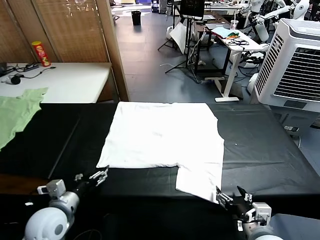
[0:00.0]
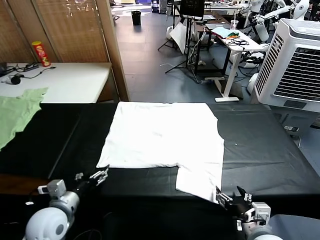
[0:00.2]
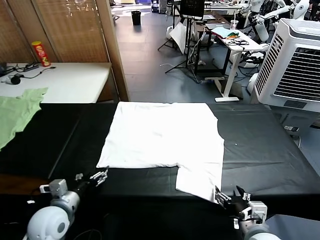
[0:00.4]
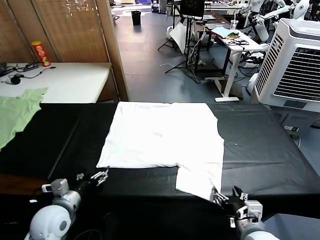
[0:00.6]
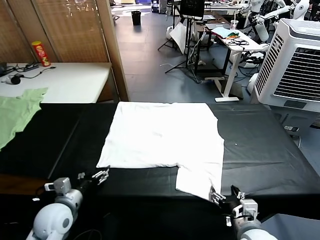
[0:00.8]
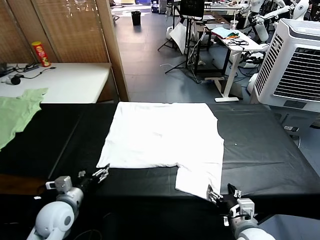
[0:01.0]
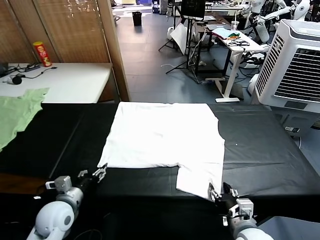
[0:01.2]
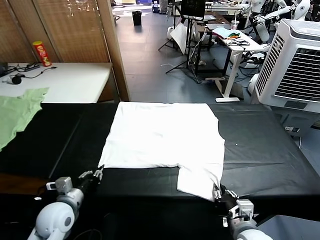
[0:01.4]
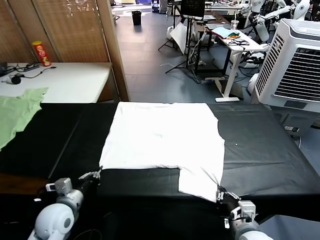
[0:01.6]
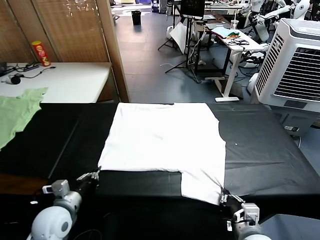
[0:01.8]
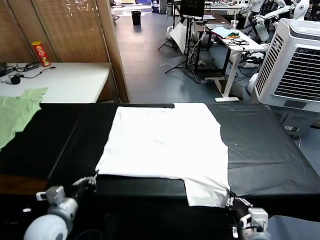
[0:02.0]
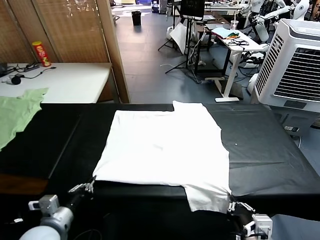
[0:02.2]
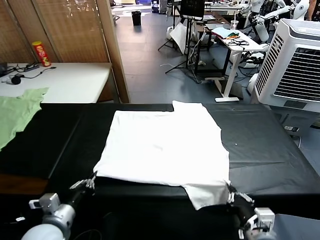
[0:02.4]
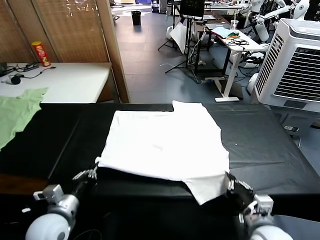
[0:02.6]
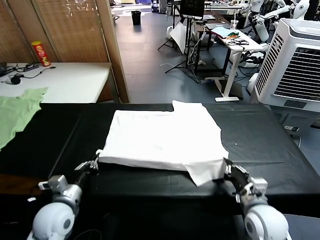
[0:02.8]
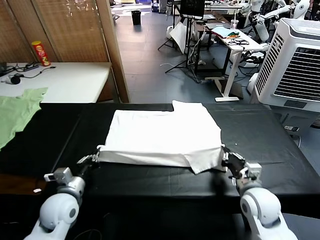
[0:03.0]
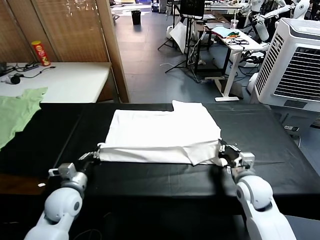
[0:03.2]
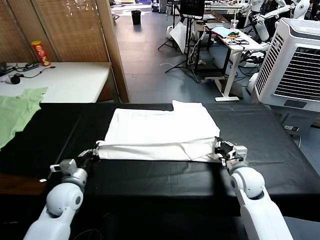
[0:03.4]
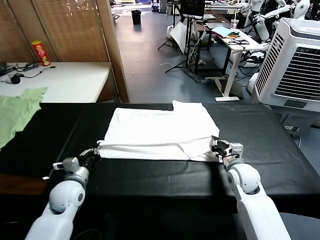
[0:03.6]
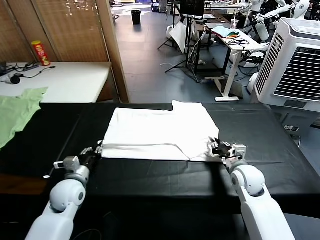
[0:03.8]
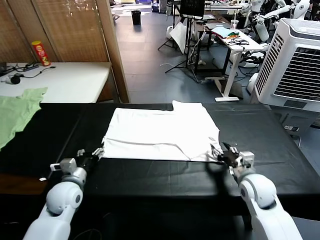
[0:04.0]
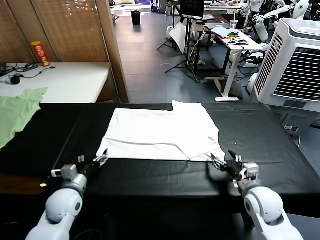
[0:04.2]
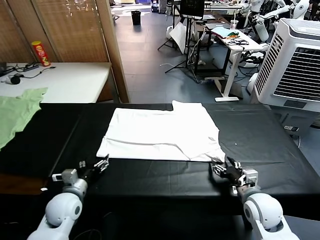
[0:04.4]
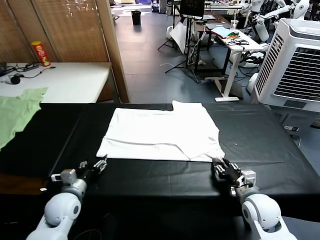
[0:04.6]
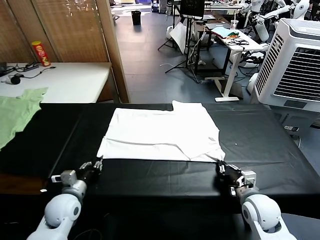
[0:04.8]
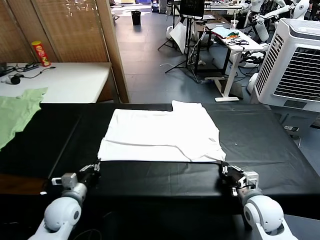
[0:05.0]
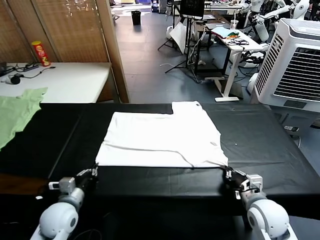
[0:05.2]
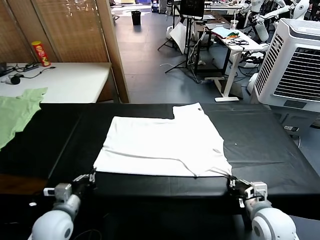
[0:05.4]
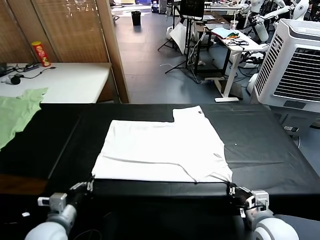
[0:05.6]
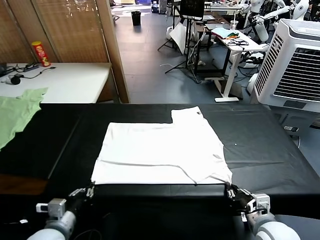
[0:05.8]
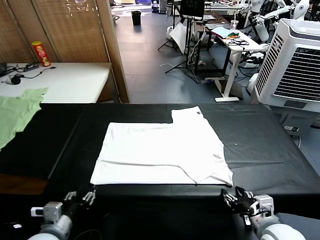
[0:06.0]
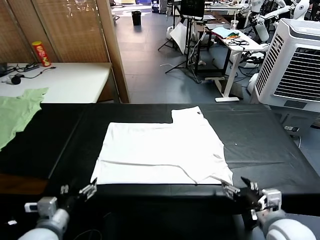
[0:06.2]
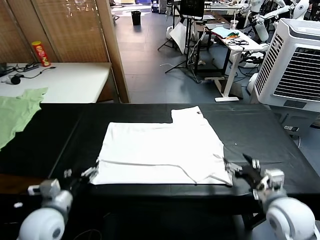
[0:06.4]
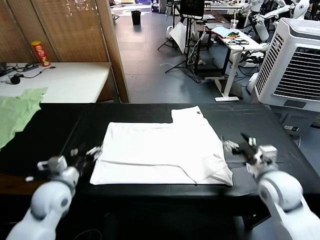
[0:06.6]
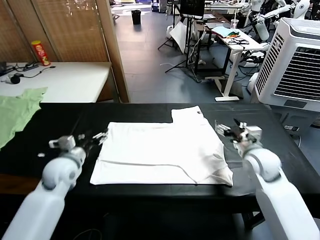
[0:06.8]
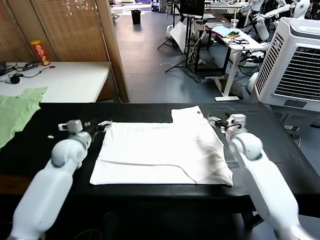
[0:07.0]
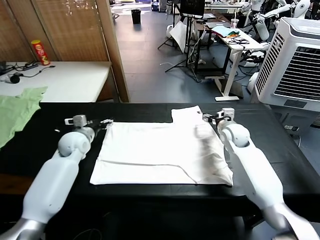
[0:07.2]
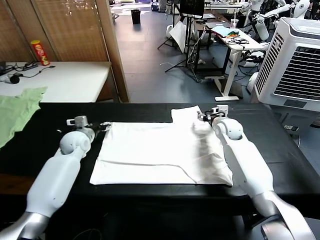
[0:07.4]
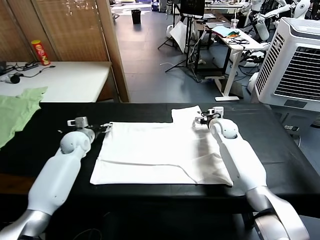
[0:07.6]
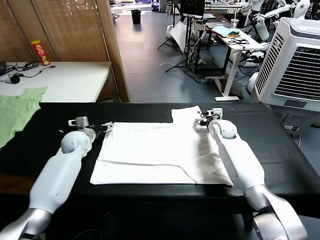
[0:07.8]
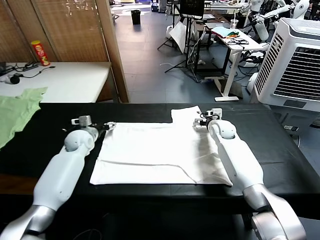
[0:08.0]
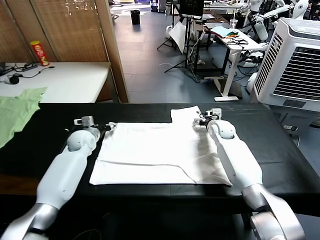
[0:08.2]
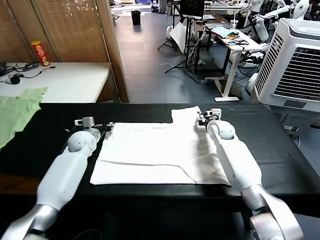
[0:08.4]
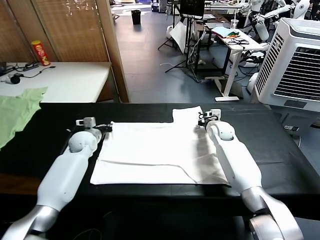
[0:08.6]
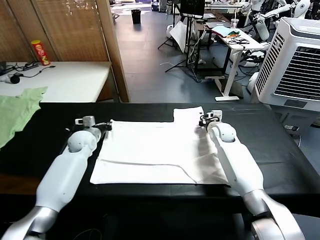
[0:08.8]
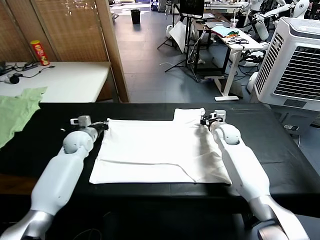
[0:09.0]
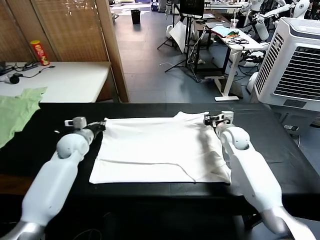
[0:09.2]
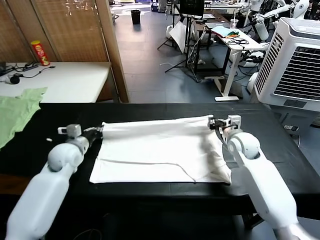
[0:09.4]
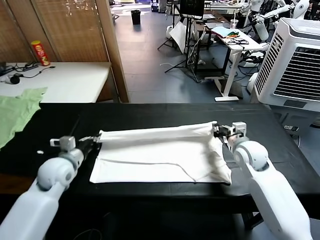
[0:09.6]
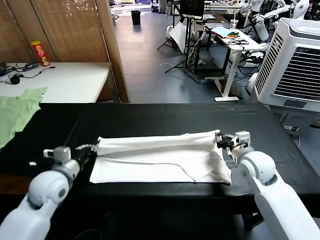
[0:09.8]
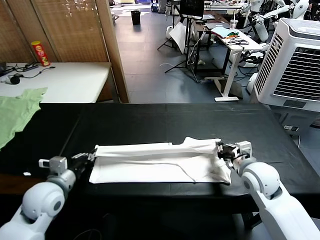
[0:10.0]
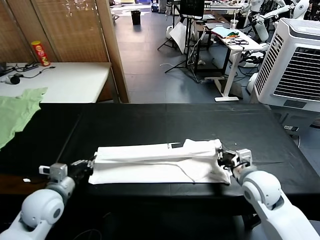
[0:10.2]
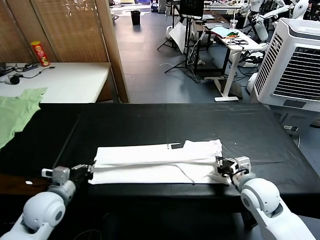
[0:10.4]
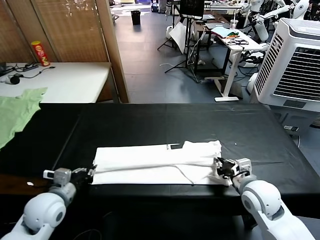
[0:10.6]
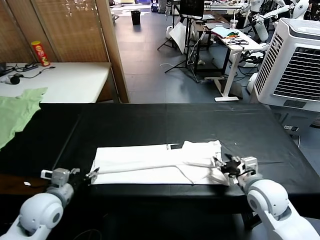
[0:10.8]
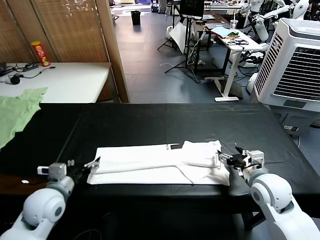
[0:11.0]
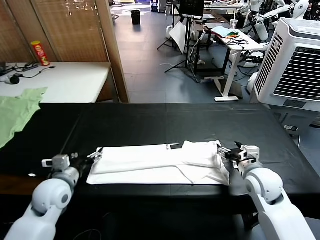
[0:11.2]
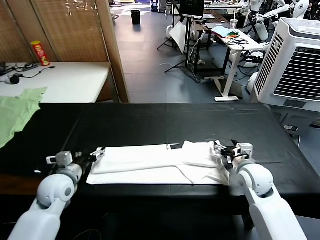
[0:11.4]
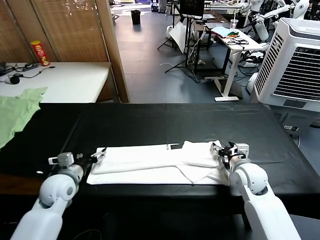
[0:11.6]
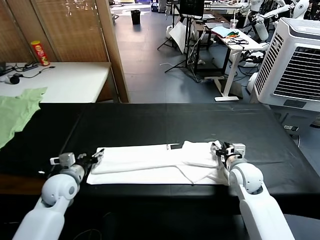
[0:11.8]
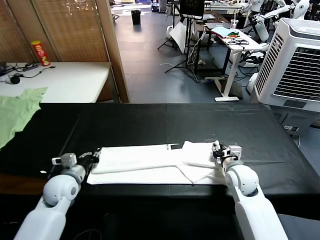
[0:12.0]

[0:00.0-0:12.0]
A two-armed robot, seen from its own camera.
Task of the whole recording: fold and organize the clothes.
Step, 0.0 to 1.6 s: use both grippers simultaneously to clamp the lower edge of the clothing fabric.
Step, 1.8 to 4.0 s: use both grippers to drag the lower edge of the fabric forward and fold it over the upper edge.
Step, 4.2 to 6.0 s: Drag the clothes downward with both gripper.
Step, 6.2 to 8.6 s: use both grippers simultaneously to clamp the upper edge of the clothing fabric.
Step, 8.8 to 10.8 s: use both grippers to drag the upper edge of the fabric backward and fold it over the lower edge.
1.6 to 3.0 s: The right gripper is displaced forward by approximately 15 cm; the left gripper goes backward and returns, about 5 cm each way.
3.0 to 4.4 s: The left gripper opens up. The right gripper moves some 5 cm, and opens up.
4.4 to 6.0 s: Both grippers move backward and upward, approximately 15 cm. The right gripper opens its fingers. Meanwhile the left gripper closes, then opens again.
6.0 to 7.6 s: The grippers both shift forward by roughly 35 cm.
7.6 to 9.0 s: The right gripper closes up; the left gripper closes up.
9.0 to 10.4 s: Both grippers travel together backward, some 25 cm.
10.4 to 12.0 s: Both grippers move forward, some 5 cm. The left gripper opens and closes again. The right gripper opens and closes again.

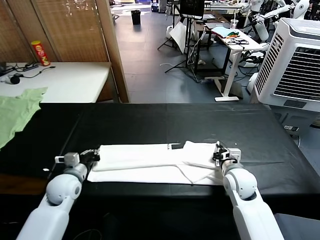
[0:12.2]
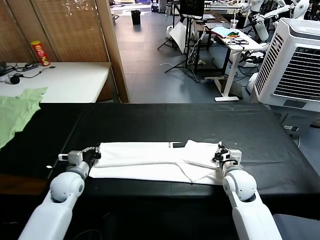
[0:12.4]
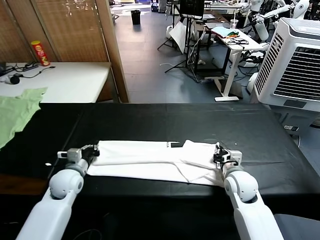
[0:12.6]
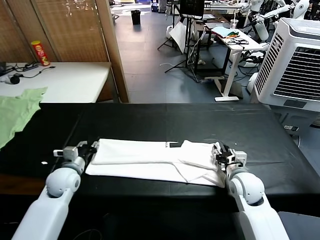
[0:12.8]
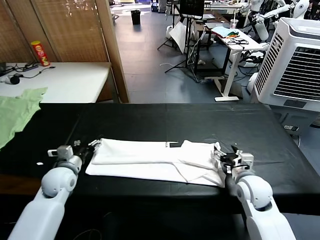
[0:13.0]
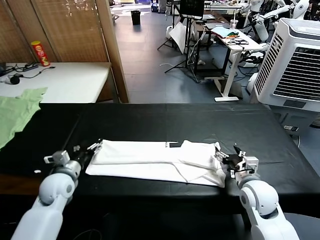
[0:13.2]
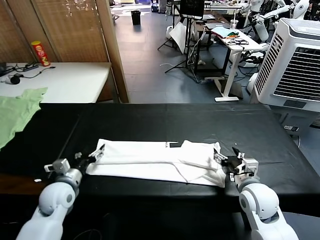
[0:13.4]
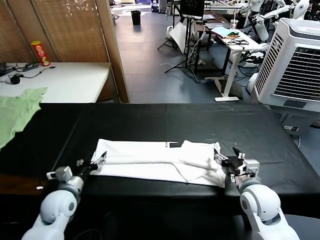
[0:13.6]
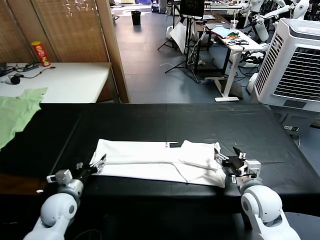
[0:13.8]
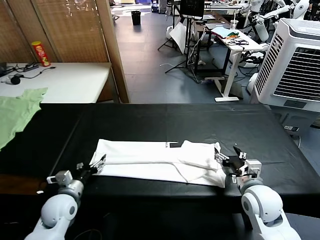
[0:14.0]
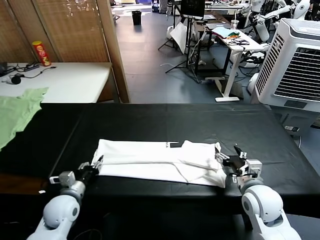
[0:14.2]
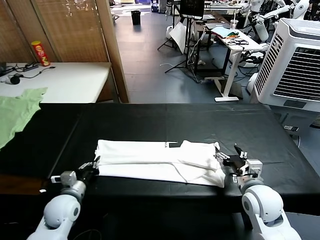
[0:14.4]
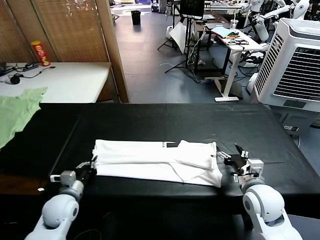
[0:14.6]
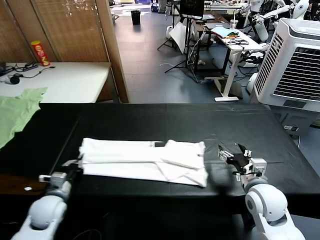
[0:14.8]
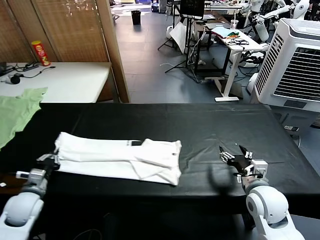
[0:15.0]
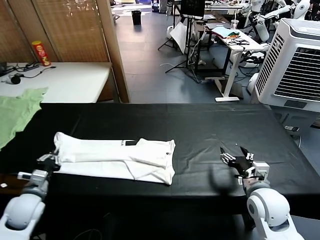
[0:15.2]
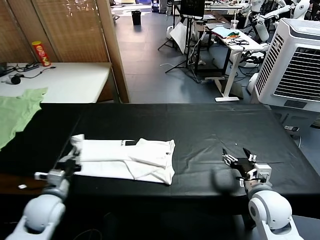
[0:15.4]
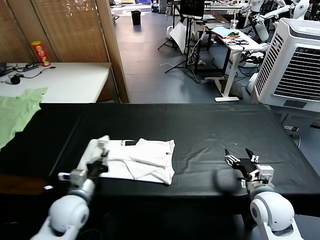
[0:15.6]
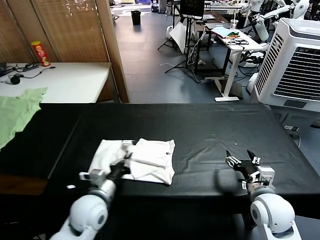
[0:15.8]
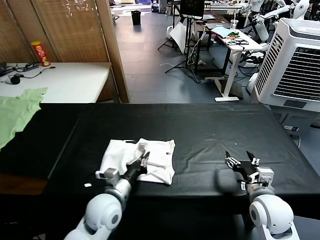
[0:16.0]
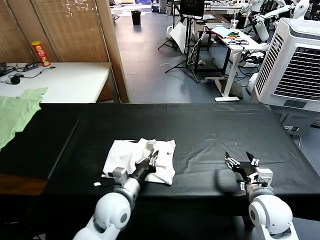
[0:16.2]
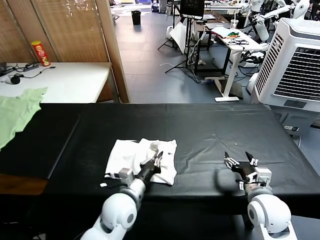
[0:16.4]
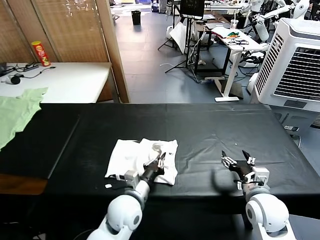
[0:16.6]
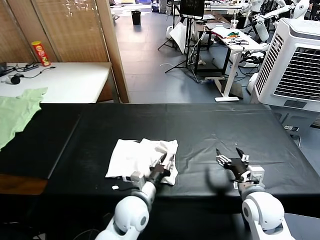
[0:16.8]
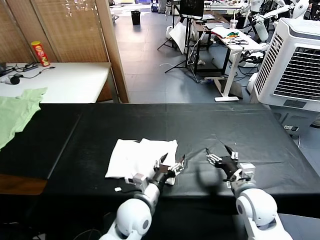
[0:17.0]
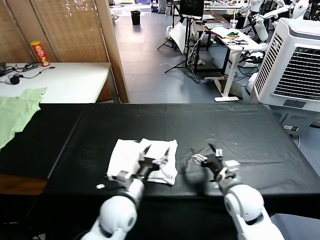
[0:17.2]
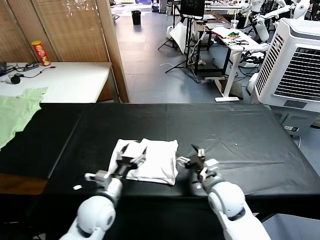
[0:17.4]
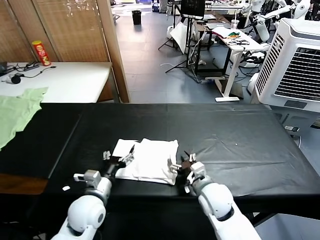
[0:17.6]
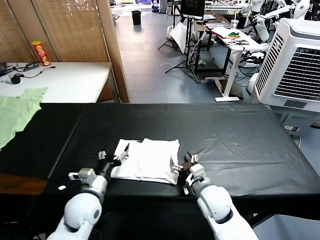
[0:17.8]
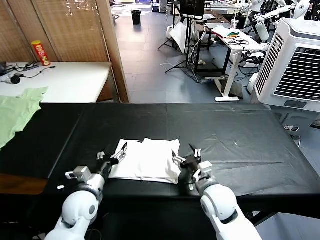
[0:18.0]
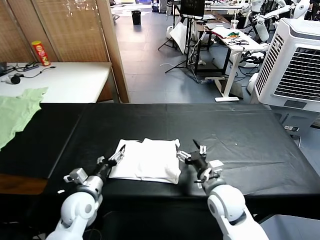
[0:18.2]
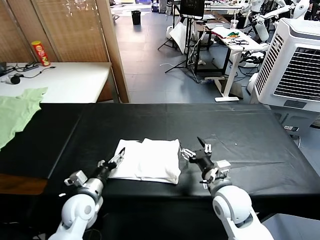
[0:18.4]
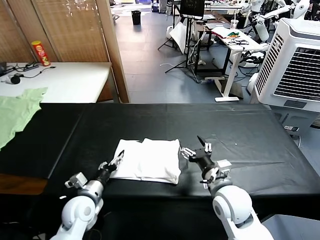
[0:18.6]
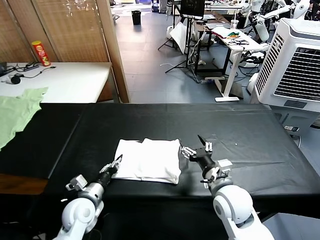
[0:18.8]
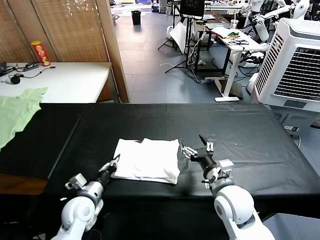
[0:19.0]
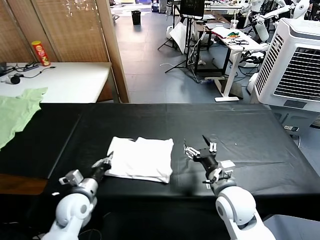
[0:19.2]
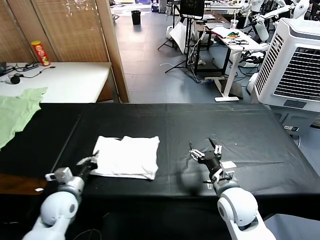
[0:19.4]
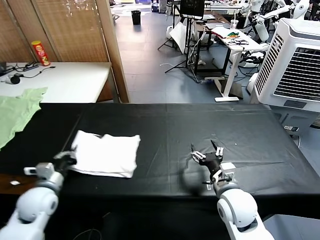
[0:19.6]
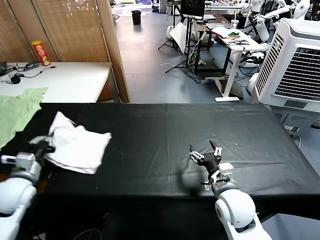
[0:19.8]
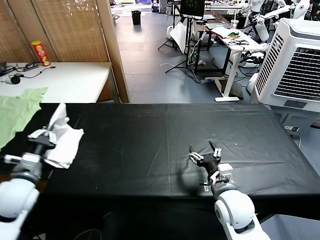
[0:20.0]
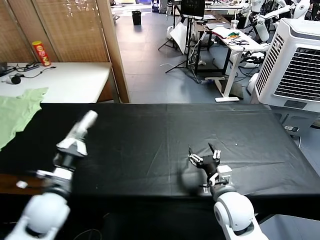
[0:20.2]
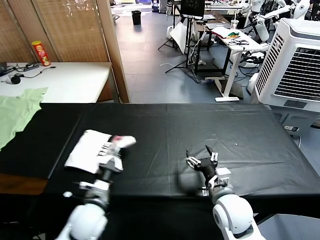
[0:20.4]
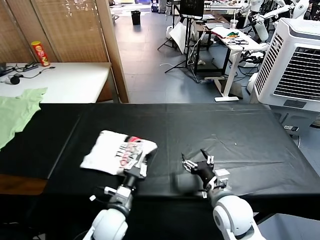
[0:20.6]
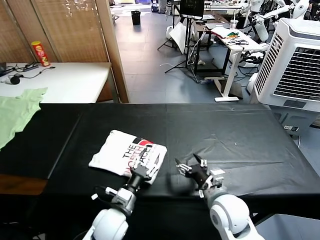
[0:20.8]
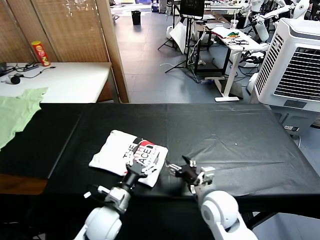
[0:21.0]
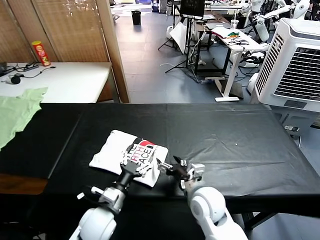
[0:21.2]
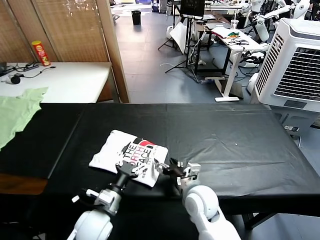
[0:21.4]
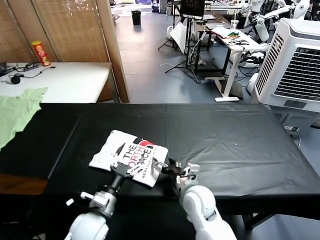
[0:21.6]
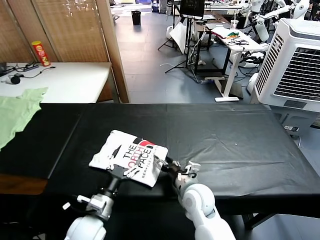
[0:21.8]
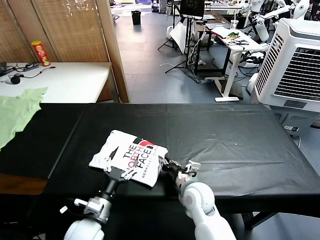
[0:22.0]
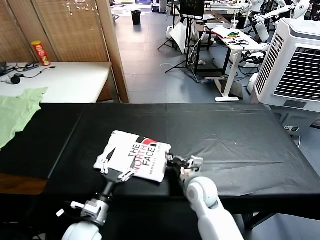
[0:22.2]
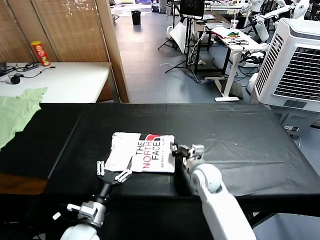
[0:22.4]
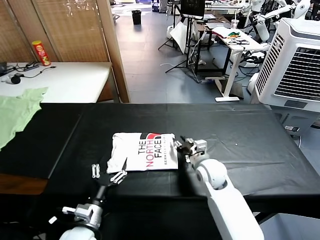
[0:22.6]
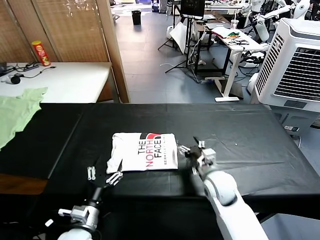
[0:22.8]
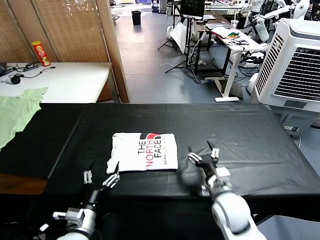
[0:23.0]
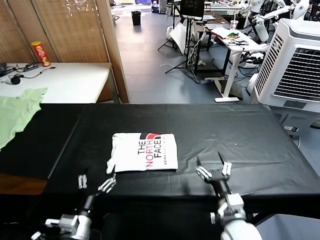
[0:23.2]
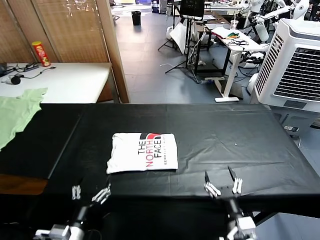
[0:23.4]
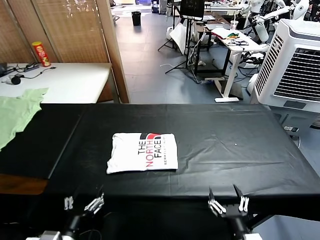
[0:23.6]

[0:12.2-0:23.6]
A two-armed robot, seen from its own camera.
Task of the whole recording: fold and organize the clothes.
Step, 12.2 to 14.4 s: use the left gripper to clamp the left edge of the fabric.
Step, 14.6 to 16.8 s: use the left gripper to drag the left edge of the fabric to the left and folds it over the right edge.
Step, 17.0 to 20.6 s: Flip the folded clothes over with left gripper.
Step, 20.8 to 22.4 s: Drag the clothes to the center of the table.
12.2 to 13.6 s: The two grippers go roughly 5 cm backward. The right gripper opens its fingers; the left gripper opens up.
13.6 to 15.0 s: The left gripper goes about 10 cm to the left, and closes its fingers.
15.0 to 16.4 s: The left gripper shifts some 30 cm to the right.
16.4 to 17.8 s: The grippers both shift to the left by some 10 cm. The left gripper opens its fingers.
17.8 to 19.4 s: The left gripper goes approximately 10 cm to the left, and closes up. The right gripper shifts about 5 cm upward.
19.4 to 20.8 s: The left gripper moves to the right, roughly 15 cm, and opens its fingers.
20.8 to 22.2 s: The left gripper is displaced to the left by about 5 cm, and opens. Meanwhile the right gripper shifts some 10 cm forward, to the left and downward, and closes its fingers.
22.2 to 23.6 s: The left gripper moves backward, about 10 cm, while the right gripper is displaced backward by roughly 25 cm, and opens up.
